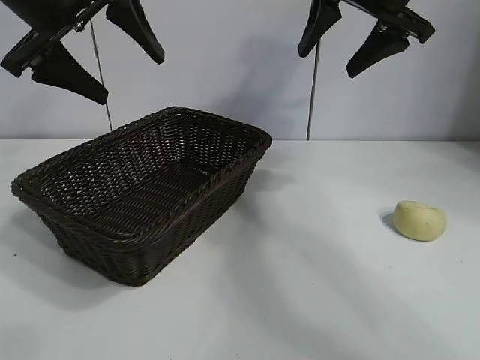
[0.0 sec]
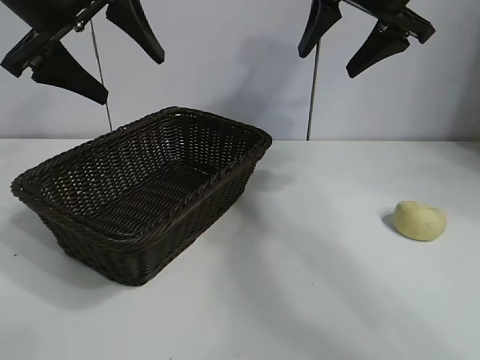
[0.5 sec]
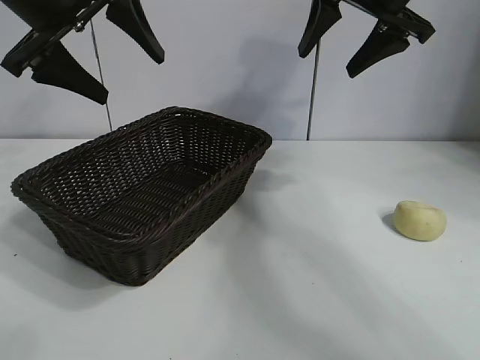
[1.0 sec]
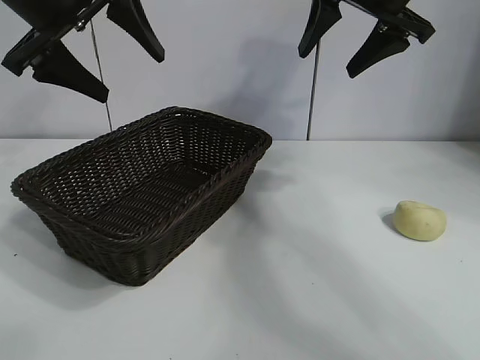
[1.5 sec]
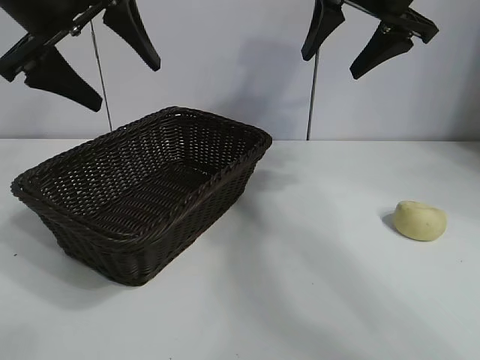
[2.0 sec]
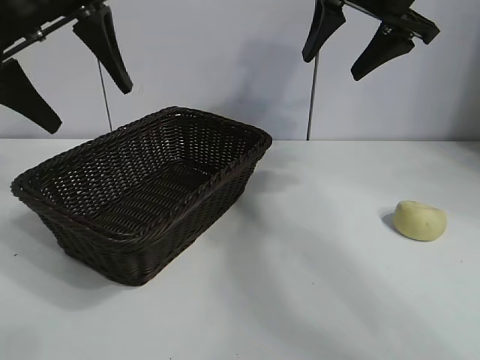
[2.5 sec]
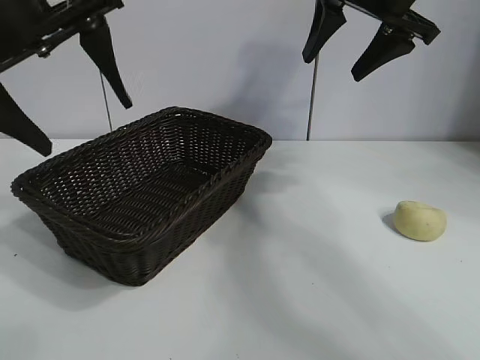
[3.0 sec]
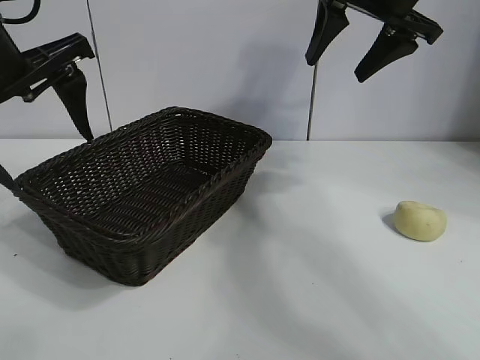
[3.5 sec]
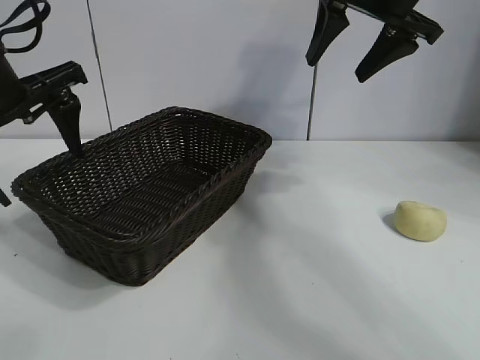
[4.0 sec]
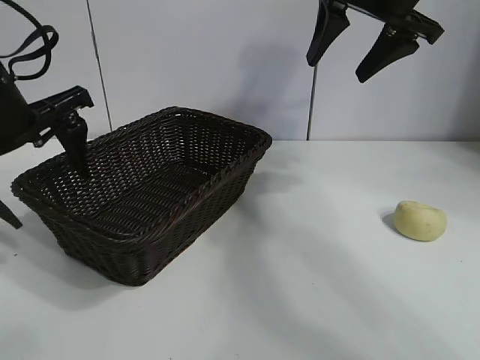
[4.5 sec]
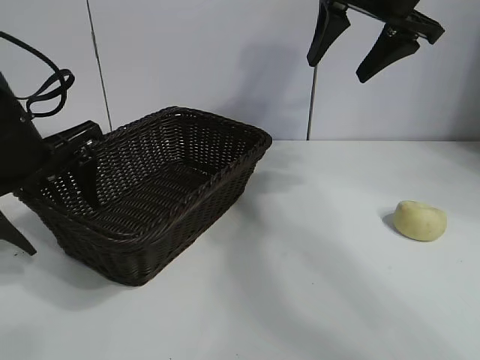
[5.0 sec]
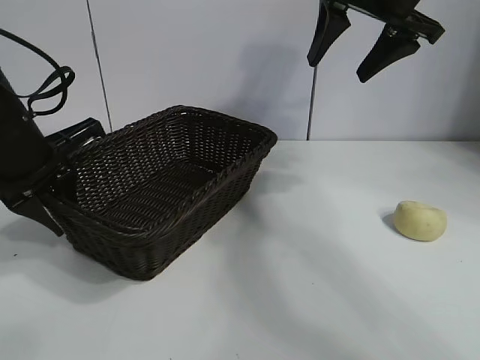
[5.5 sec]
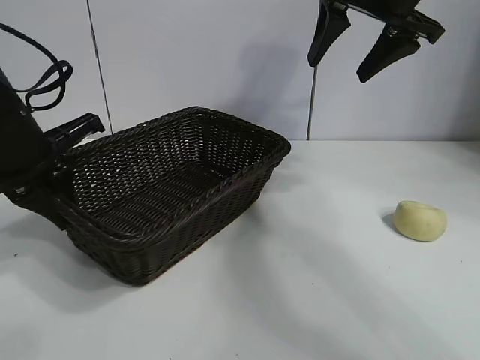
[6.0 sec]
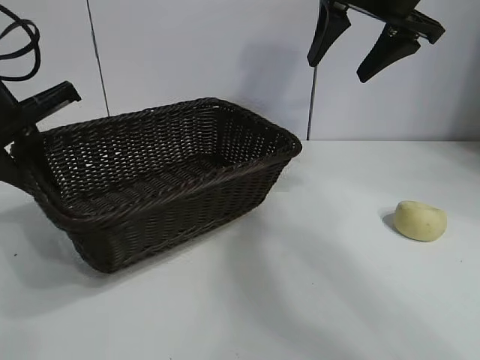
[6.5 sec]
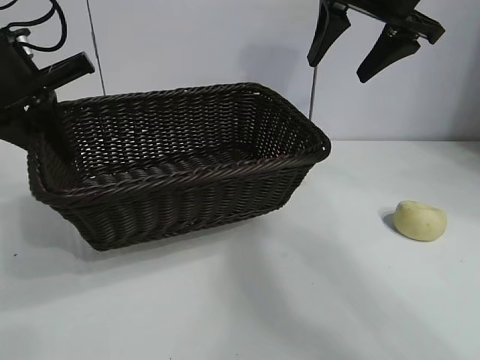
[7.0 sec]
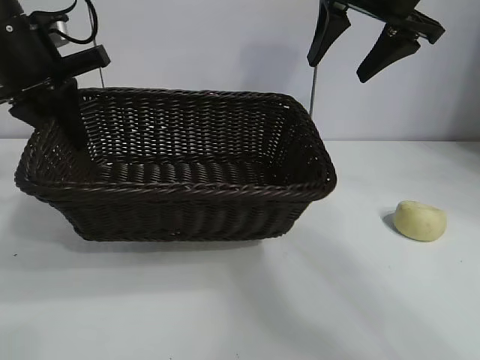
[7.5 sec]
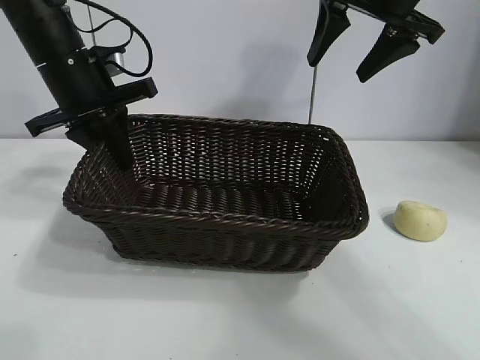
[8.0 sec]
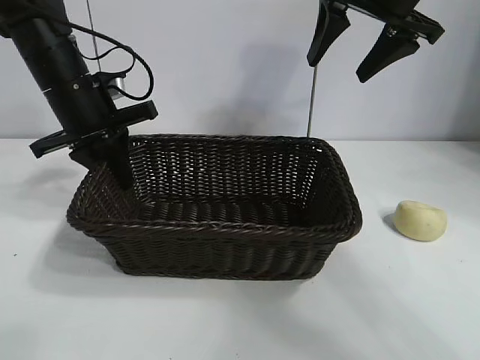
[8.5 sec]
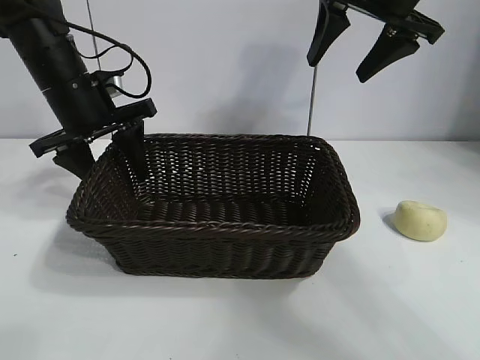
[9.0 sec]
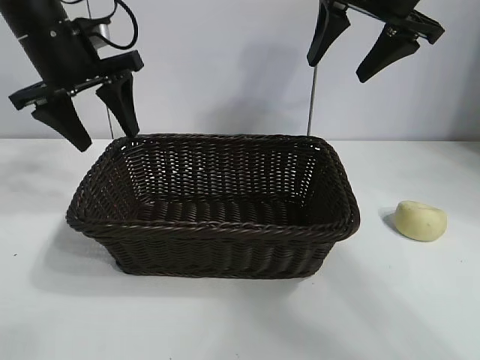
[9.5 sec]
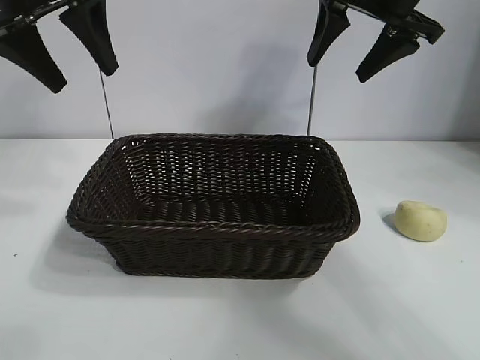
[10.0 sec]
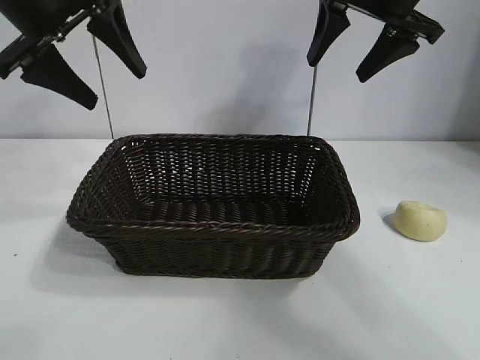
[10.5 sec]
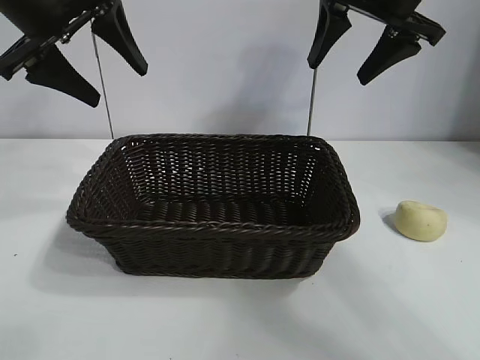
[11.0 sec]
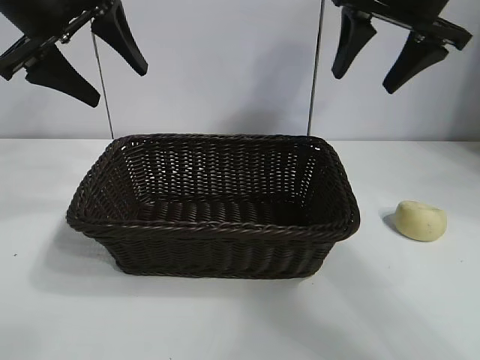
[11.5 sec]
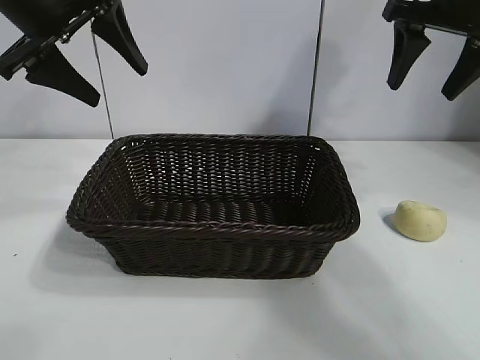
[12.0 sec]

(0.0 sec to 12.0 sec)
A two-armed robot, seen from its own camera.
Task of the whole recording: pick up the egg yolk pastry and put it into the basket.
Step, 2.0 sec - 5.5 sec: Grasp the basket with left gripper.
Step, 6.0 sec - 9.0 sec: Place the basket in the center of view with left gripper.

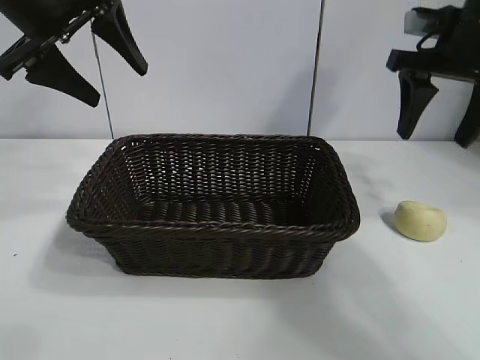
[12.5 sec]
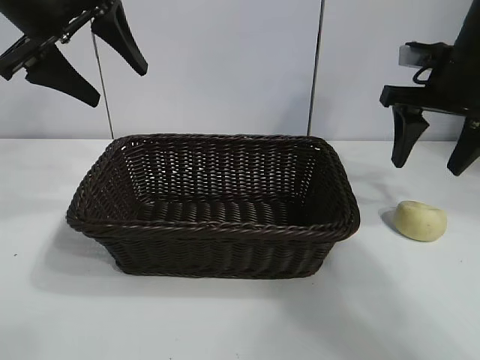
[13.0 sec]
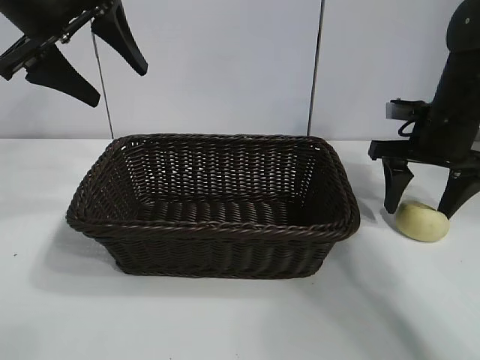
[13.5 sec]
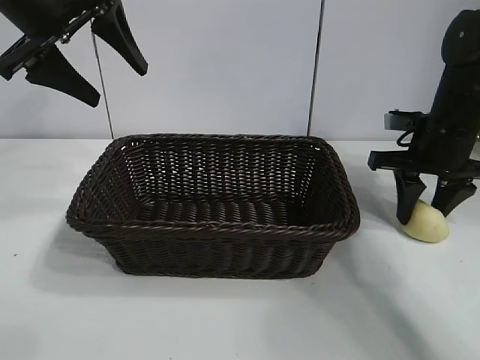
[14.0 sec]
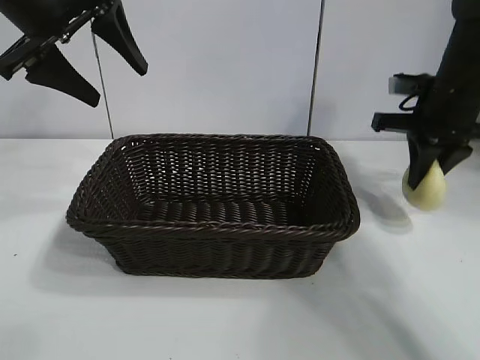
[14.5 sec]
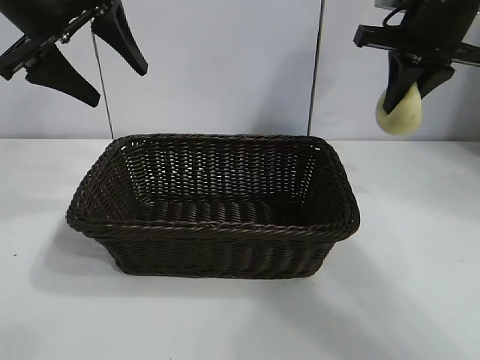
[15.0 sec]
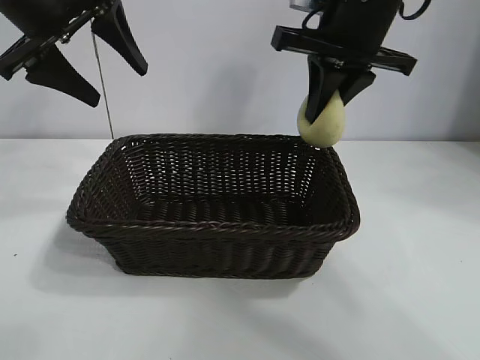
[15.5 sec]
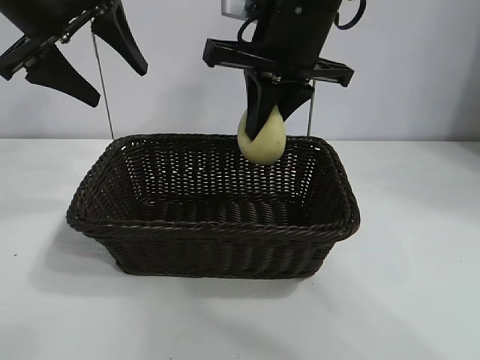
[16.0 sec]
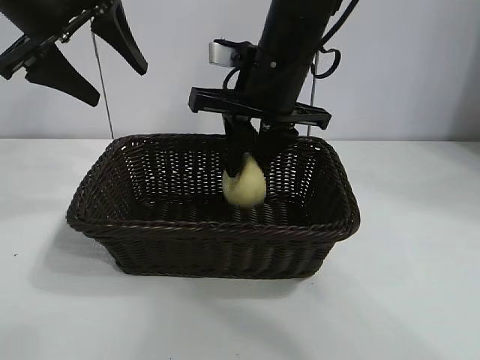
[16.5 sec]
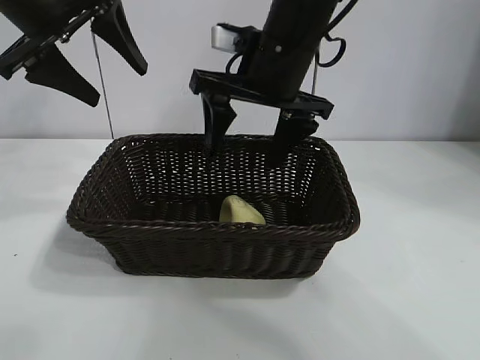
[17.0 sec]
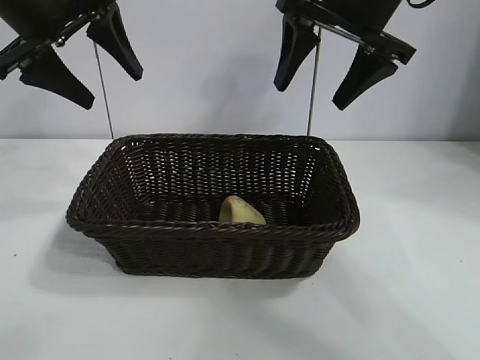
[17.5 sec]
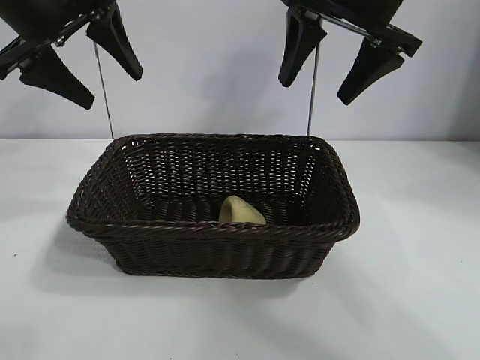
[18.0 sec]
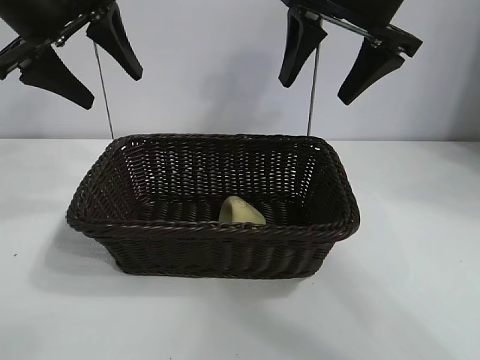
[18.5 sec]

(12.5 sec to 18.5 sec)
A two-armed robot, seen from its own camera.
Task of the whole recording: pick up the egg yolk pastry and put it into the basket.
Step, 14.5 sec - 16.5 sec: Place the egg yolk pastry in the basket with right gripper.
